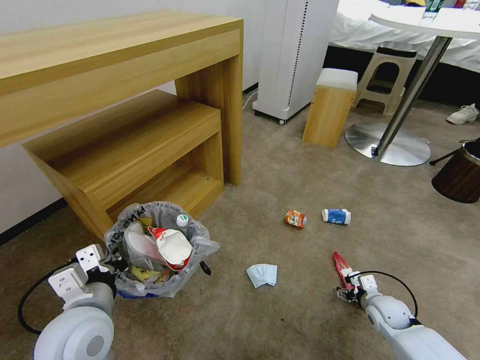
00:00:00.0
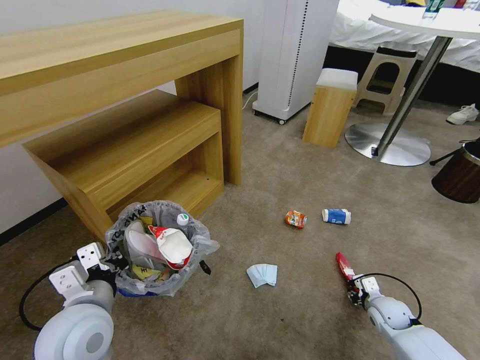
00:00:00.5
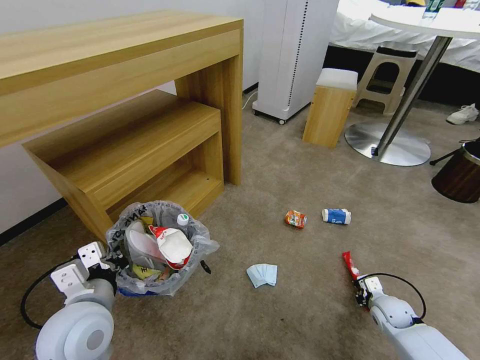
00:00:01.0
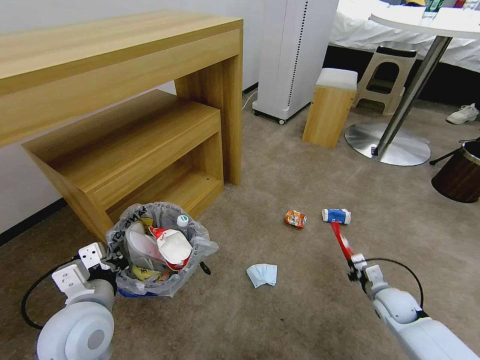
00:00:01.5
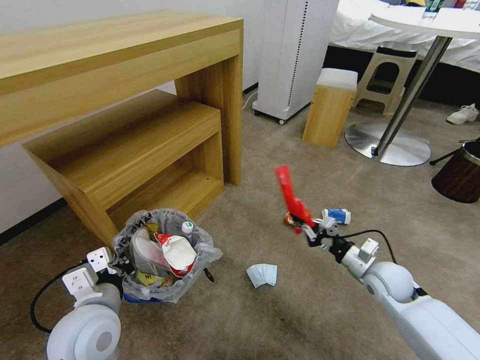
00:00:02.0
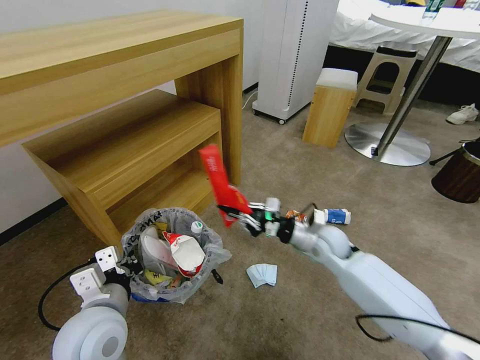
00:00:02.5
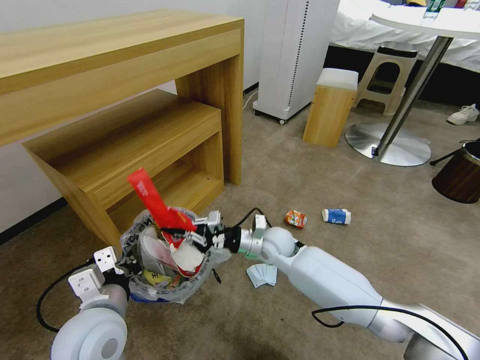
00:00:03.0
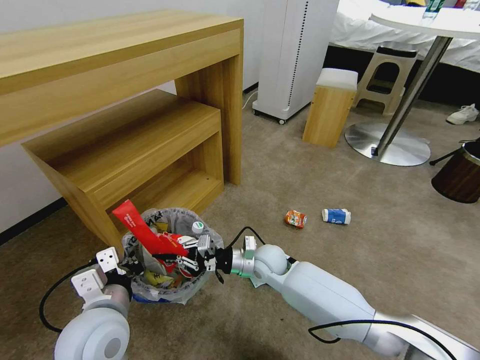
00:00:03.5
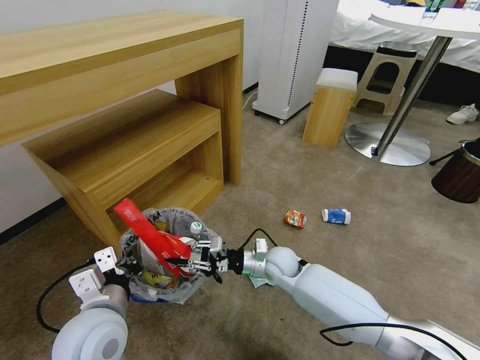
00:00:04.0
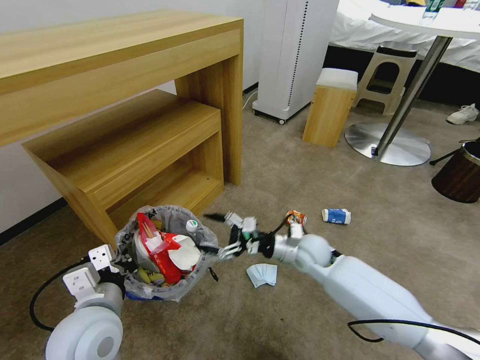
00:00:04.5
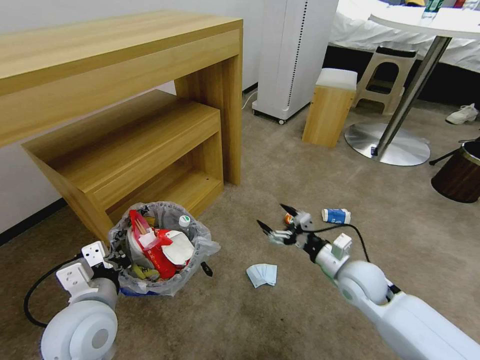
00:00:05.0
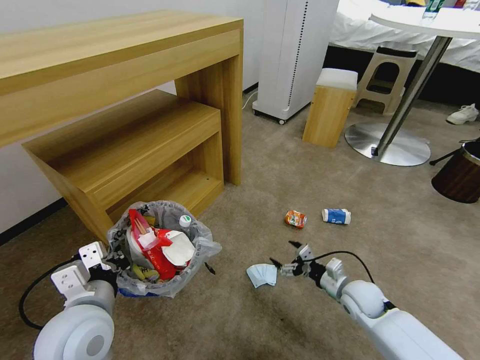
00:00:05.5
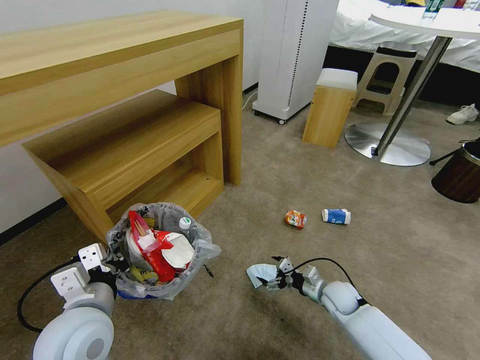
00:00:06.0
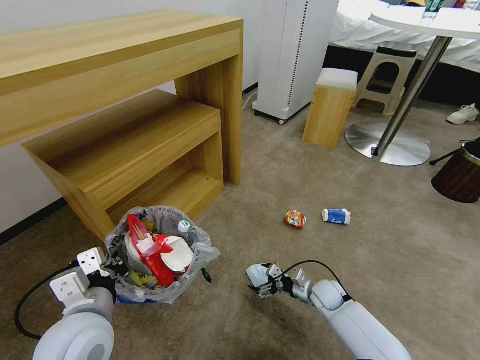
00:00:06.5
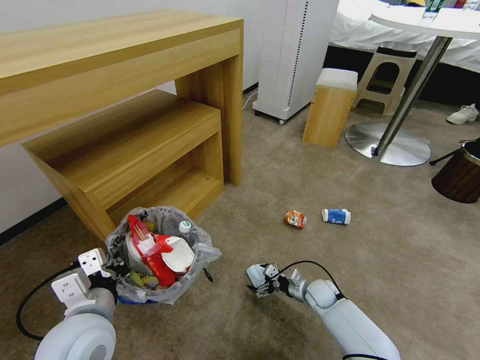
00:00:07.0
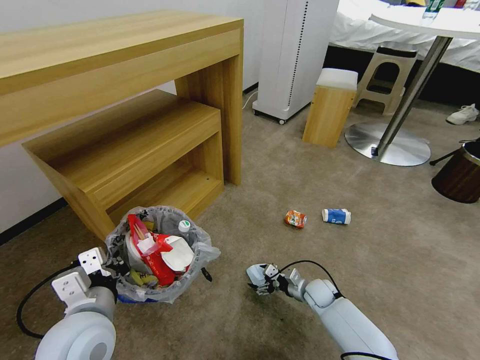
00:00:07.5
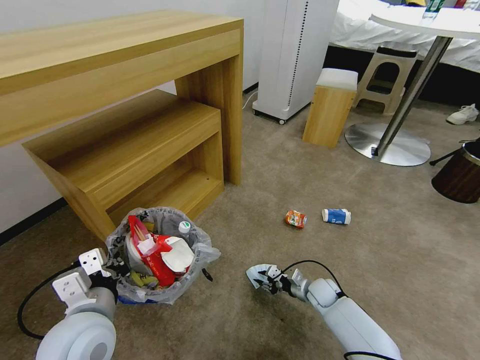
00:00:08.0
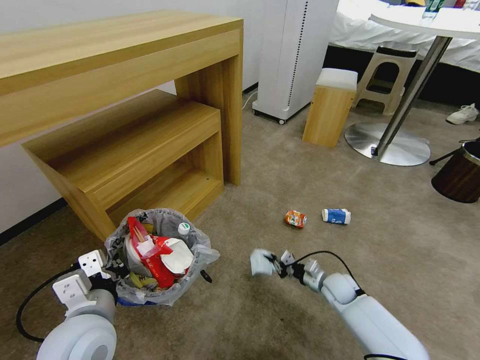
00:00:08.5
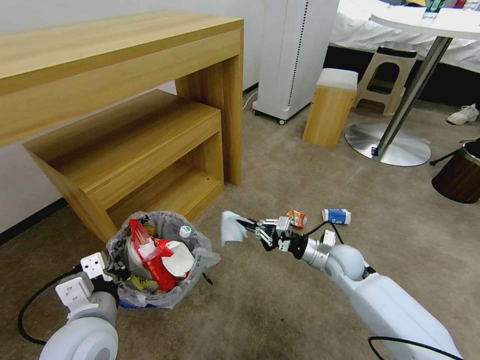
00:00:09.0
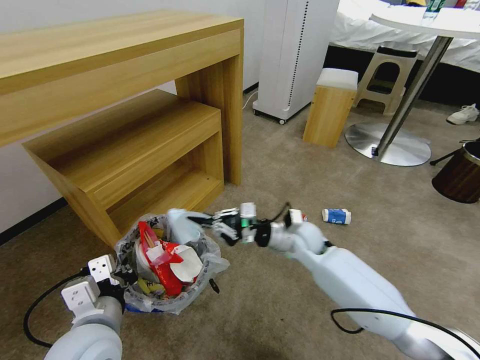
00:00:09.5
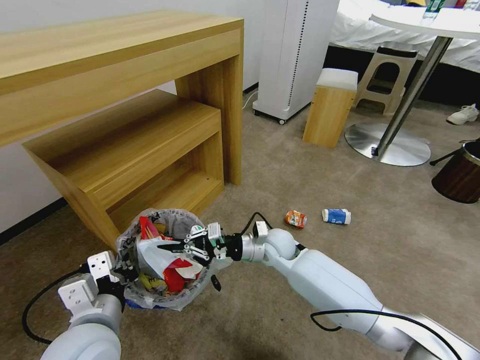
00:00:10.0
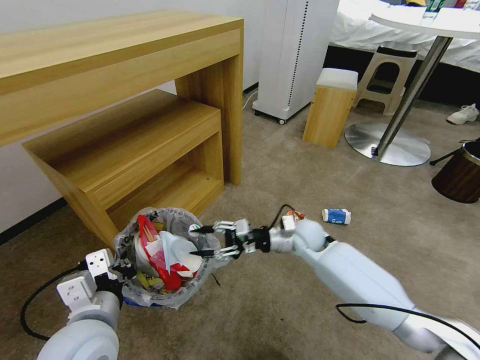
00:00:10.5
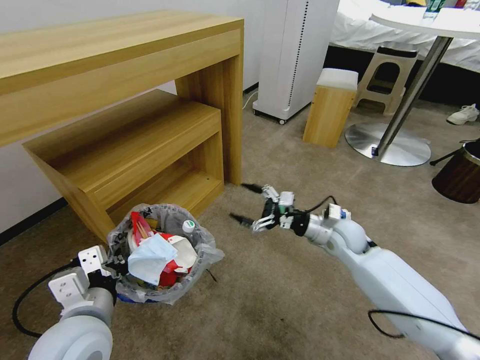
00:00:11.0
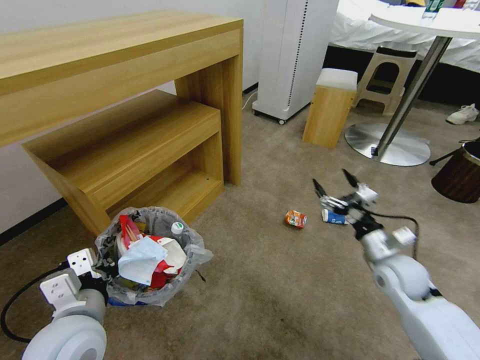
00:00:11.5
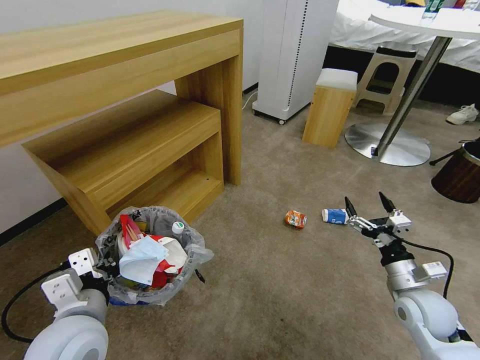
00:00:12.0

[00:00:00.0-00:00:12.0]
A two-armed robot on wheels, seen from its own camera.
Task of the whole recording: Pick up the trash bin and place the garbage on the floor into it.
00:00:00.0 to 00:00:02.0: The right gripper is displaced upward by roughly 15 cm, and closes.
00:00:02.0 to 00:00:04.0: The right gripper goes approximately 25 cm to the left.
00:00:04.0 to 00:00:06.0: The right gripper shifts about 20 cm to the right and downward, and opens up.
00:00:06.0 to 00:00:08.0: The right gripper moves downward, roughly 5 cm, and closes.
00:00:08.0 to 00:00:10.0: The right gripper is displaced upward and to the left by approximately 25 cm, and closes.
00:00:10.0 to 00:00:12.0: The right gripper shifts about 35 cm to the right and backward, and opens up.

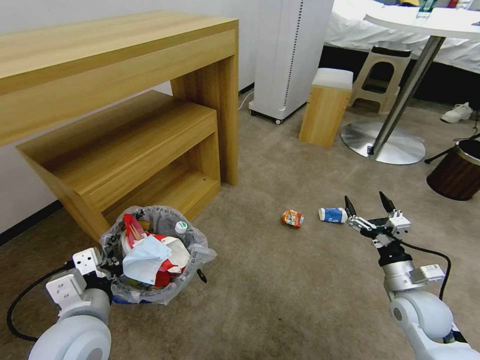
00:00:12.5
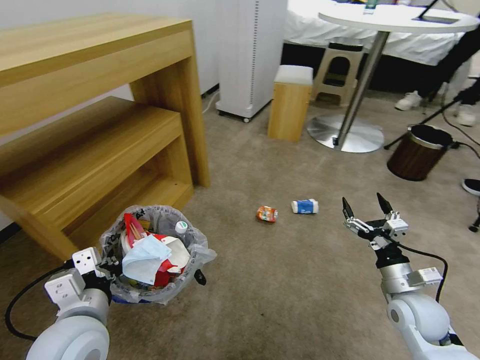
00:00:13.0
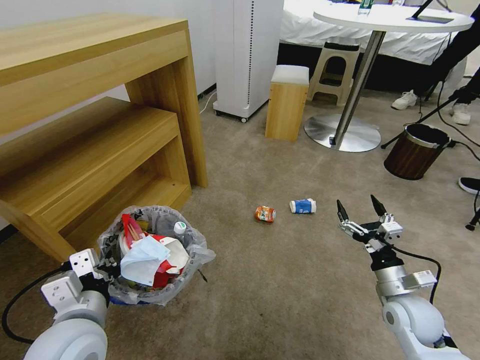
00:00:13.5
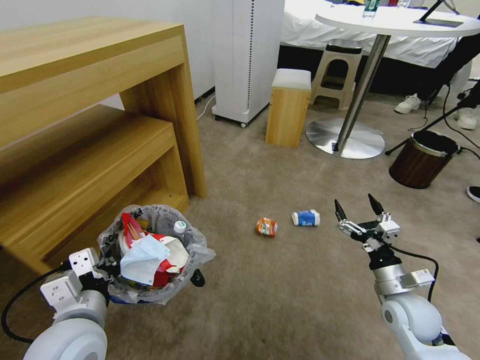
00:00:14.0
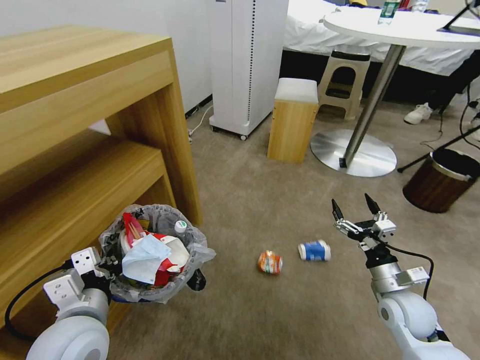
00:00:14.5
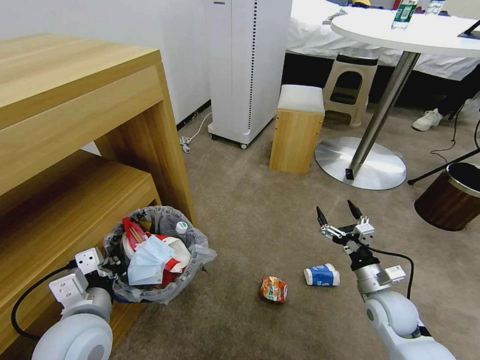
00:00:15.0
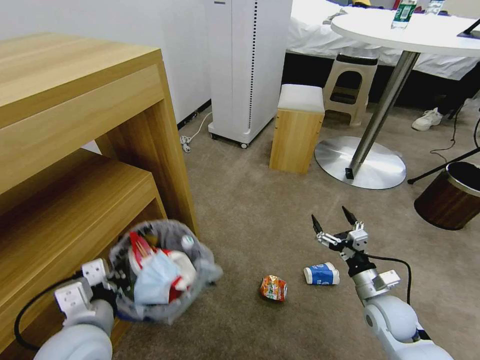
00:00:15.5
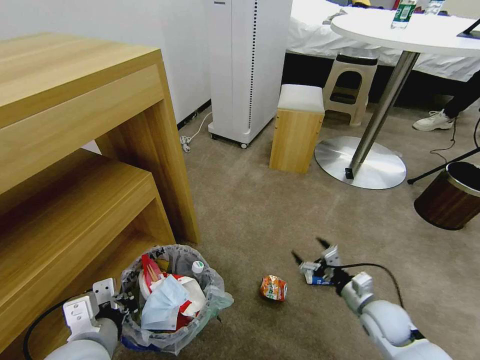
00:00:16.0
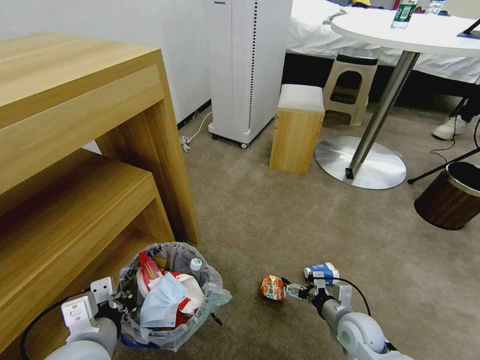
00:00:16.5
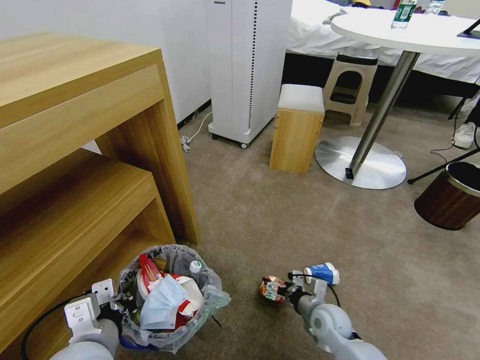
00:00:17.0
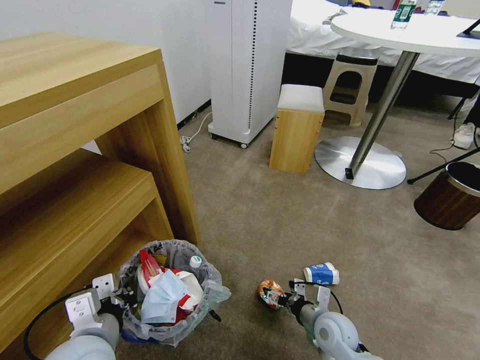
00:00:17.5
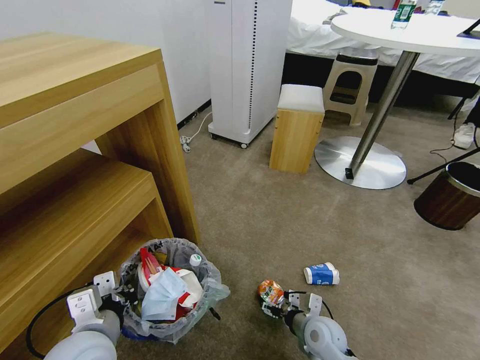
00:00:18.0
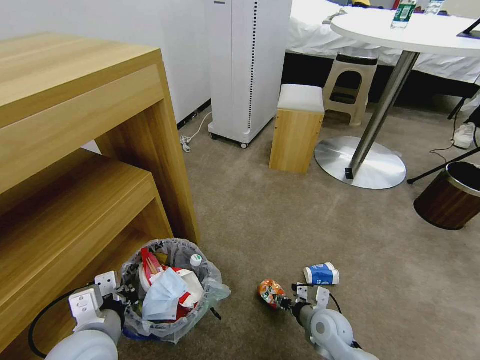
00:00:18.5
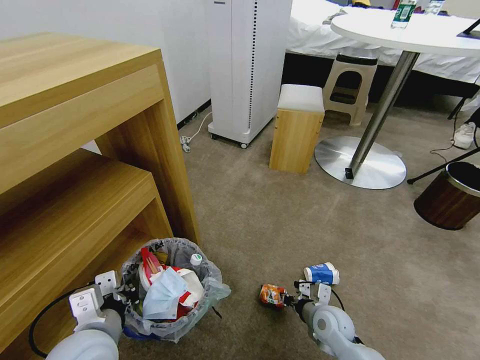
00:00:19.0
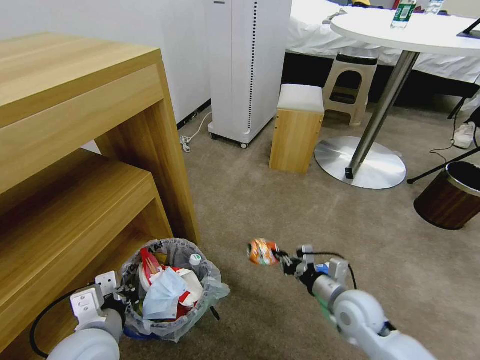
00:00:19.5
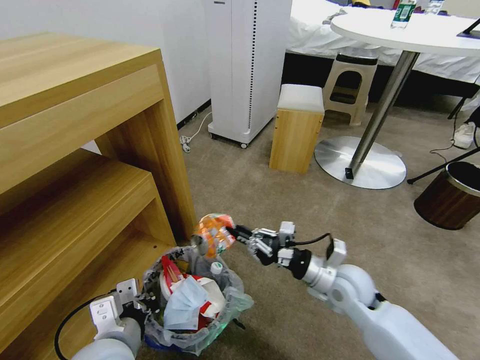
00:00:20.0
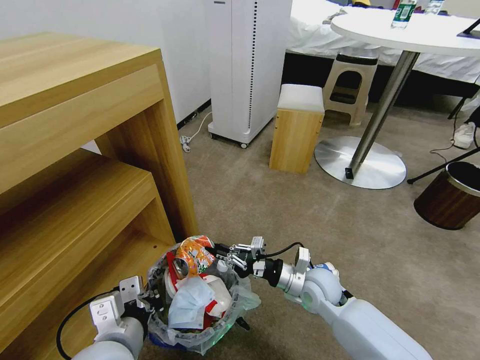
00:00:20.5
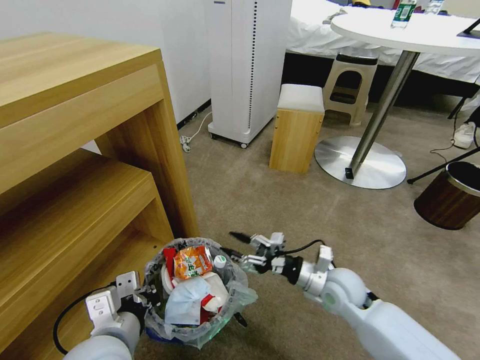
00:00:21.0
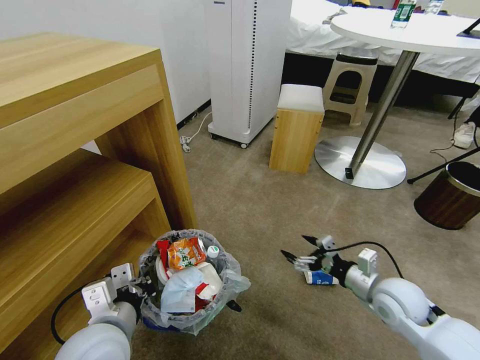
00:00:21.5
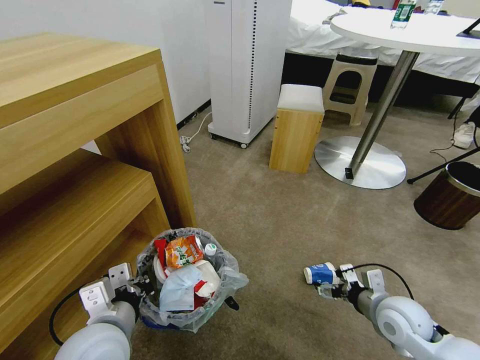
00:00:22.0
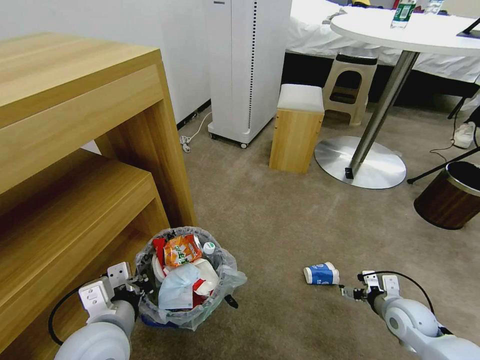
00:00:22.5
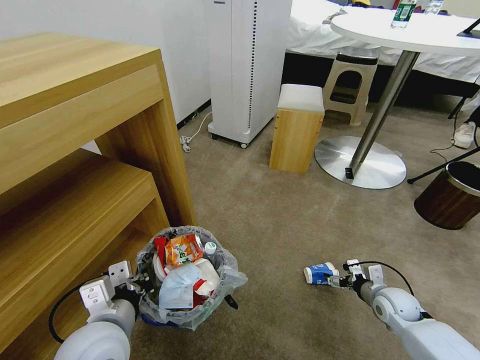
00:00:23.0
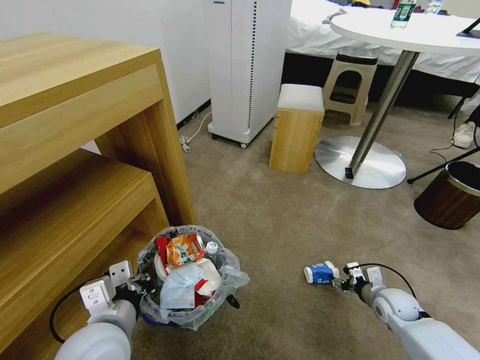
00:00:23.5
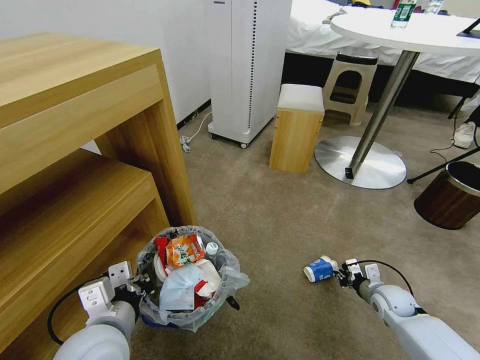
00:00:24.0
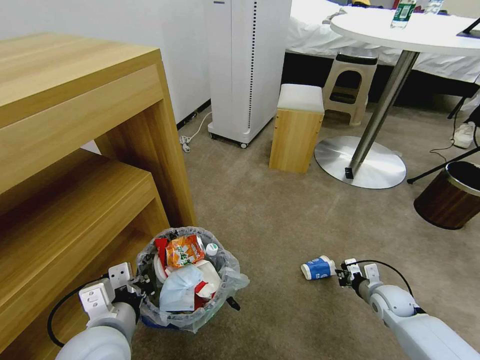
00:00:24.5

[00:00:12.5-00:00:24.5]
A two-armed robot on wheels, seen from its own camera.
Task of the whole recording: Pick up the trash bin and place the garbage on the floor into it.
00:00:14.5 to 00:00:16.5: The right gripper goes approximately 10 cm downward and to the left.
00:00:16.5 to 00:00:18.5: The right gripper moves to the left, about 5 cm, and closes up.
00:00:18.5 to 00:00:20.5: The right gripper is displaced upward and forward by about 10 cm, and closes its fingers.
00:00:20.5 to 00:00:22.5: The right gripper is displaced to the right by roughly 20 cm, and opens up.
00:00:22.5 to 00:00:24.5: The right gripper shifts some 5 cm forward, and closes up.

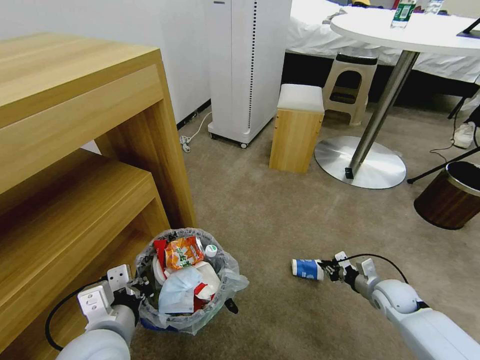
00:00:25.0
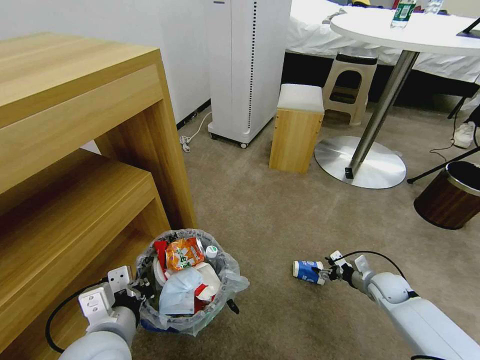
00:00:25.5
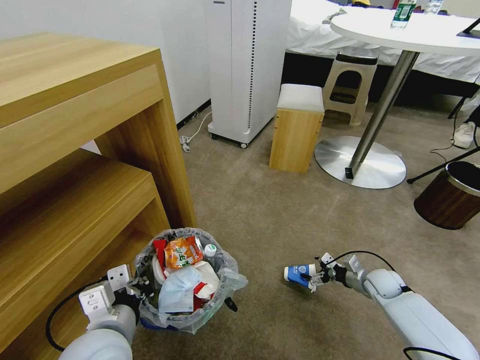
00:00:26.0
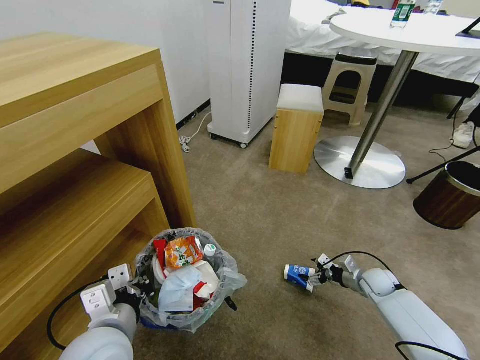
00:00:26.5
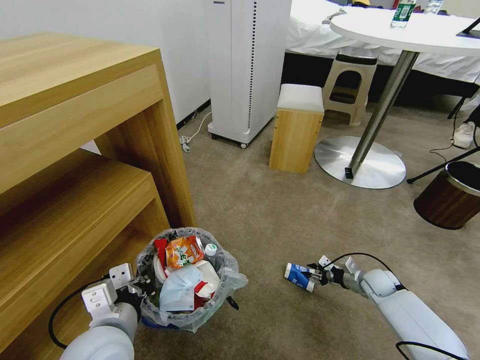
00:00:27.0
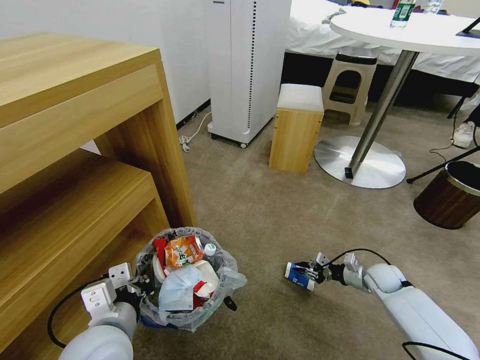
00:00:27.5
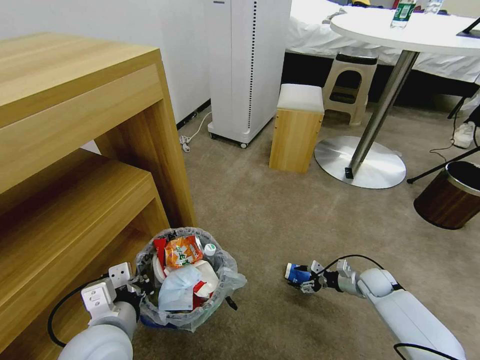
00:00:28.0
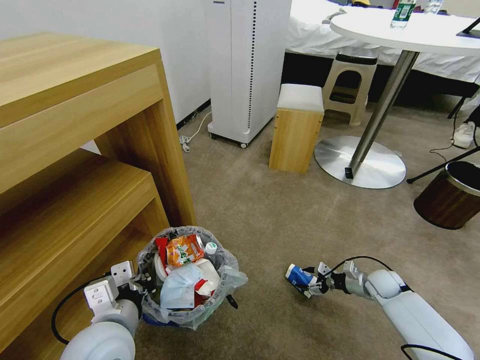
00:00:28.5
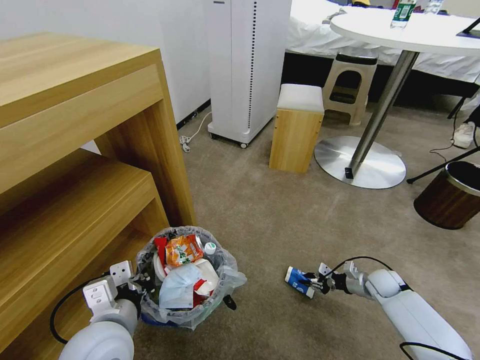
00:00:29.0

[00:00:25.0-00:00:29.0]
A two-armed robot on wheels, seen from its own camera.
Task of the whole recording: Pick up the trash bin and place the garbage on the floor into it.
00:00:25.0 to 00:00:27.0: The right gripper is displaced forward and downward by about 10 cm, and opens, then closes once more.
00:00:27.0 to 00:00:29.0: The right gripper opens, then closes again.
